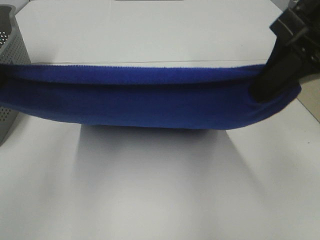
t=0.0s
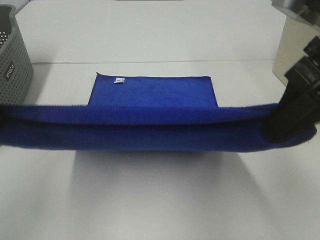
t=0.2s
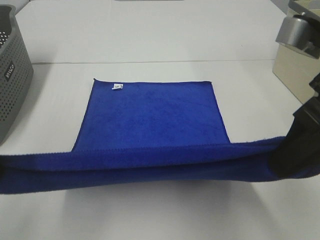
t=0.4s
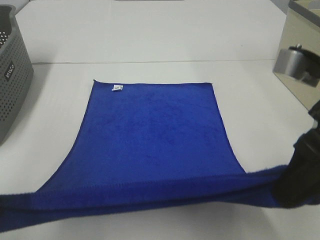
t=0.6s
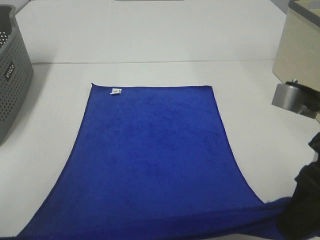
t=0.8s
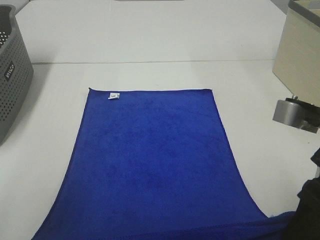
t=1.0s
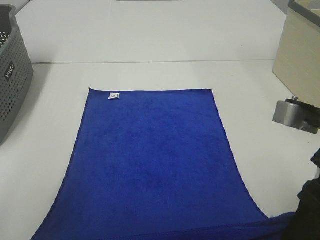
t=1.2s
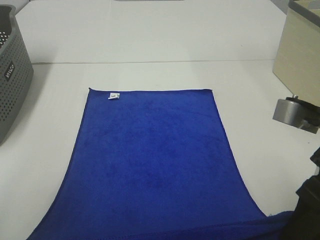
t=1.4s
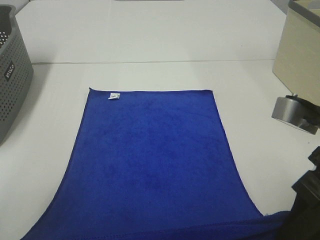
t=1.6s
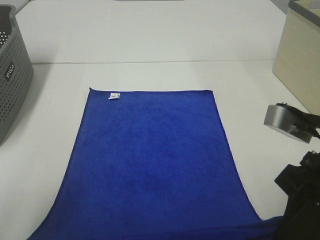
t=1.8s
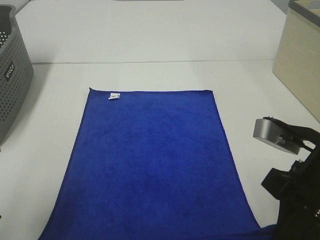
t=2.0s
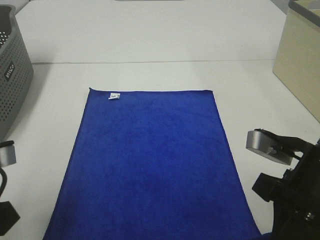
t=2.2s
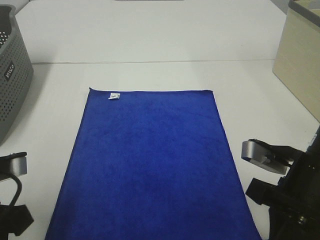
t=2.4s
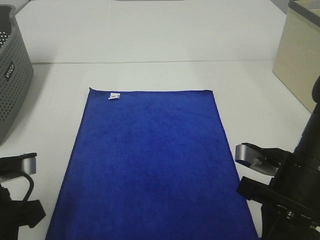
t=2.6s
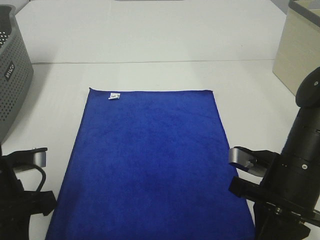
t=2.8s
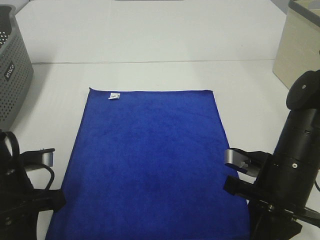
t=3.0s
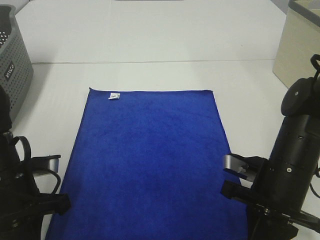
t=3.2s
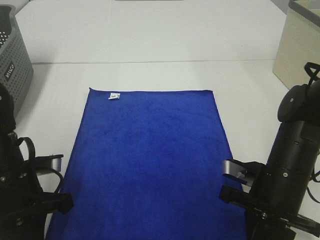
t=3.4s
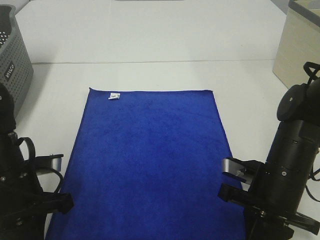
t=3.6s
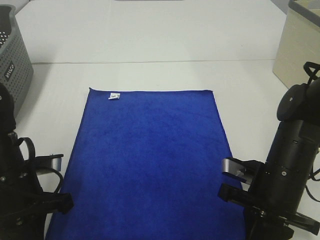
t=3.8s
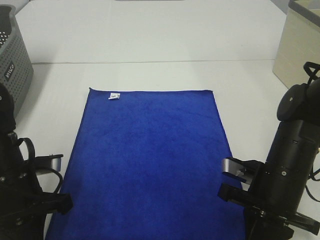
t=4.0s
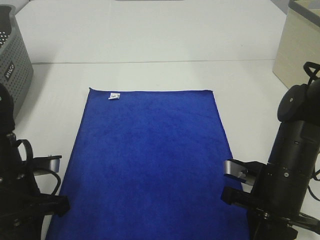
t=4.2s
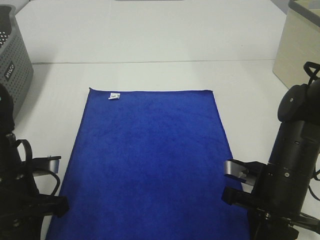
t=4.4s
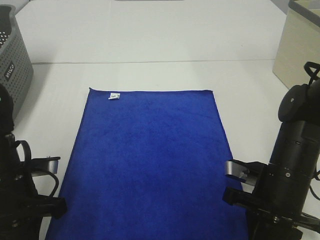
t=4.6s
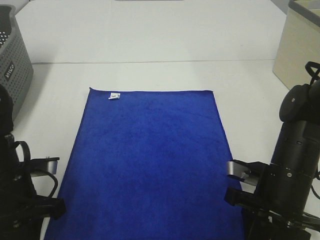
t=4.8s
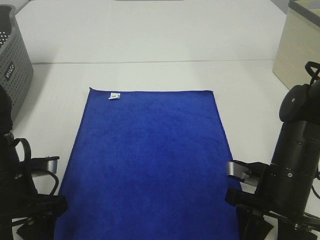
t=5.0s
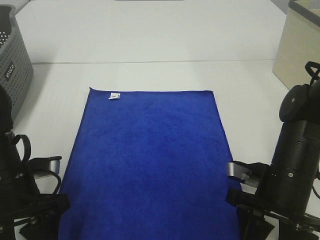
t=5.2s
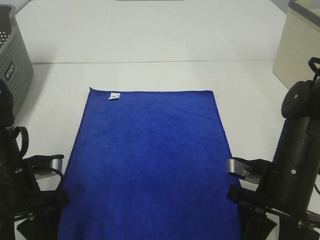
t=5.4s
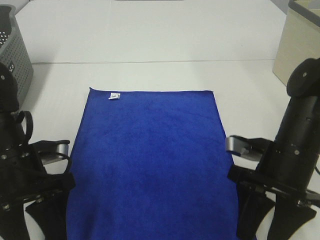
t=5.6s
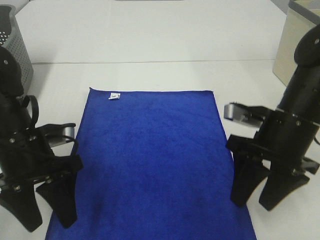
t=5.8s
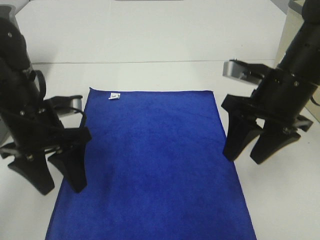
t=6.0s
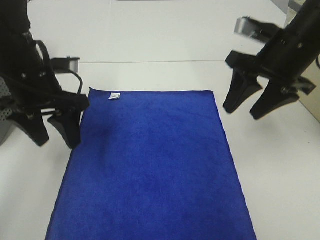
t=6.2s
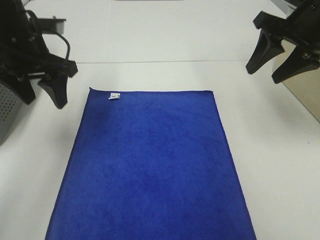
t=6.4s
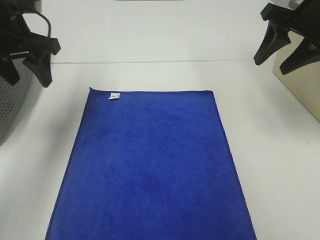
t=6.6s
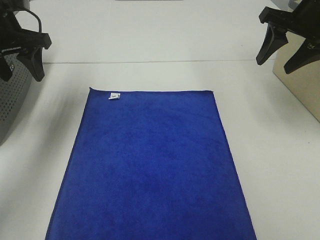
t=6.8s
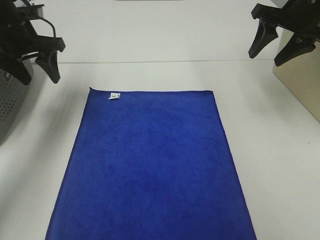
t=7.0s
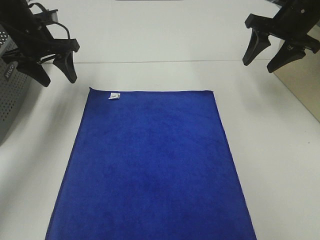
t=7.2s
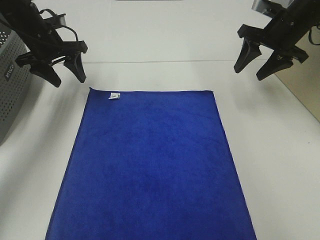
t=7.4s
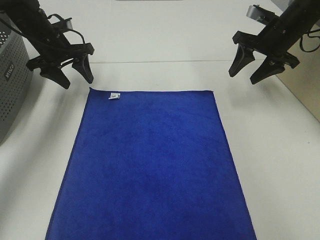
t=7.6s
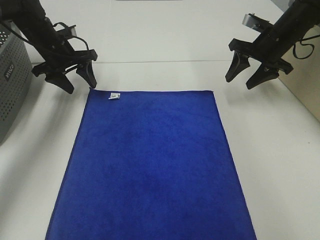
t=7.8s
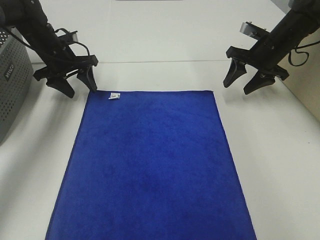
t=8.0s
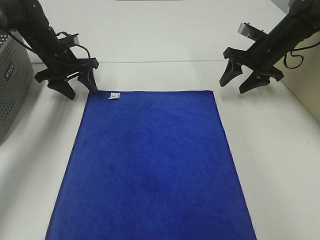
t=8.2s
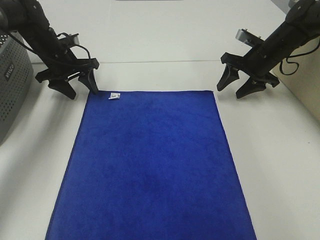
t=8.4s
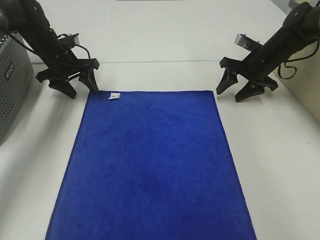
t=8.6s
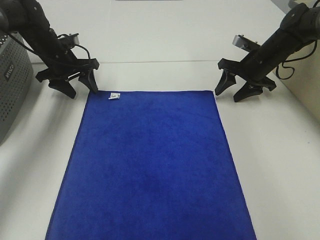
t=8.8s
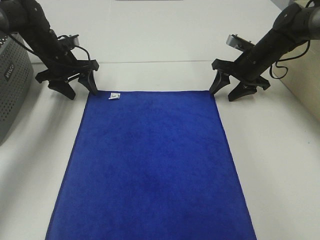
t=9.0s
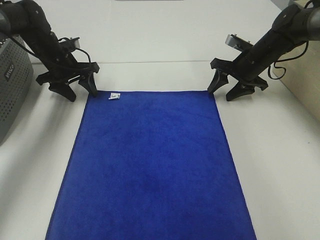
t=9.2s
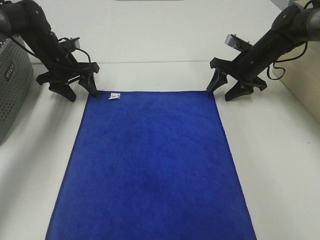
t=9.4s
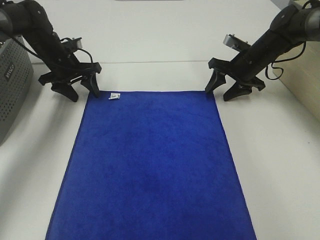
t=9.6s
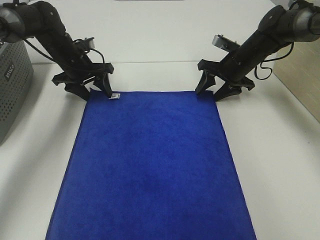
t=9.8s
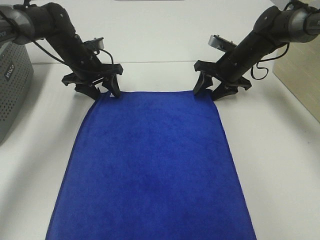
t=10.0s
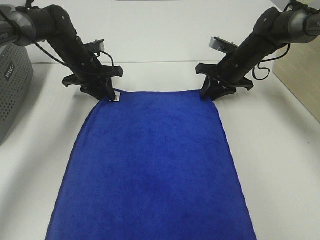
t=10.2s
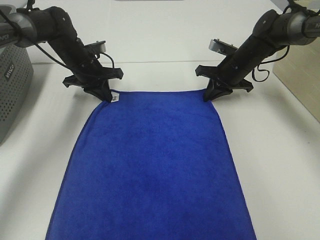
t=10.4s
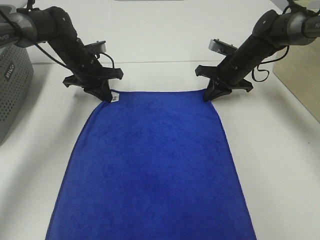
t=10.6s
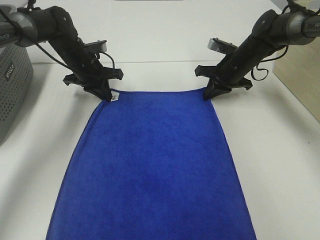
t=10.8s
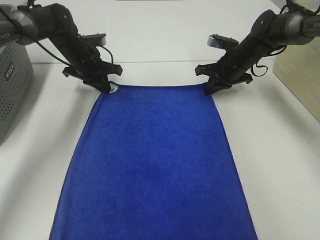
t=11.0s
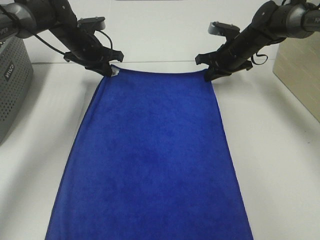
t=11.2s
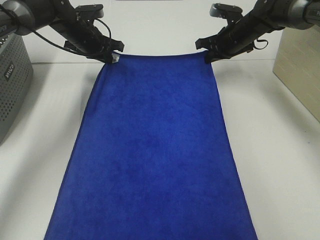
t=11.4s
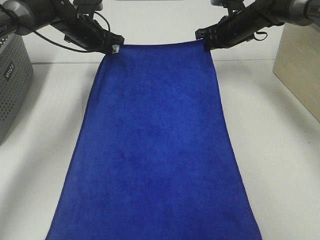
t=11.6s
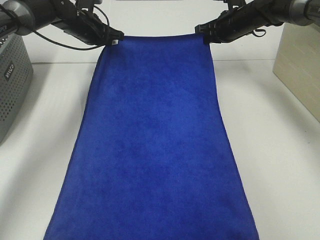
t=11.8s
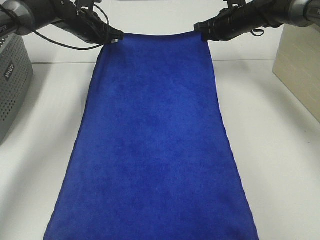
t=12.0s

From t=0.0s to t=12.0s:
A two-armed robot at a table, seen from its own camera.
Task of the whole recording: Remove the towel and place it.
Step, from t=0.0s to t=6.0s: Left hand:adjust the blue towel.
Step, from t=0.0s to t=6.0s: Right hand:adjust the blue towel.
From t=0.0s to t=1.6s: Both grippers move downward and backward, roughly 15 cm.
From t=1.6s to t=3.0s: Both grippers travel together downward and forward, roughly 15 cm.
From t=3.0s to t=4.4s: The grippers stay close to where they were, moving slightly.
From t=4.4s to t=6.0s: The right gripper shifts some 15 cm upward and forward, and opens. The left gripper heads forward and upward, covering approximately 10 cm, and opens up.
From t=6.0s to t=7.6s: The left gripper heads forward, covering some 25 cm, while the right gripper moves forward and to the right, approximately 20 cm.
From t=7.6s to t=9.0s: The right gripper goes roughly 10 cm downward.
From t=9.0s to t=10.4s: The right gripper closes, while the left gripper goes roughly 5 cm to the right, and closes up.
From t=10.4s to t=12.0s: Both grippers travel together upward and forward, about 10 cm.

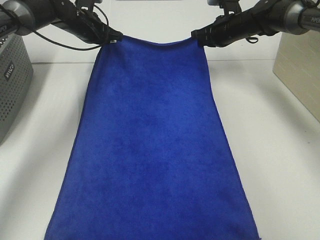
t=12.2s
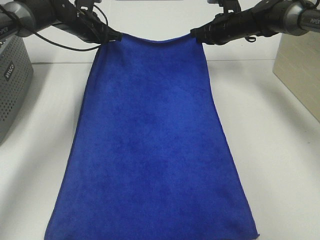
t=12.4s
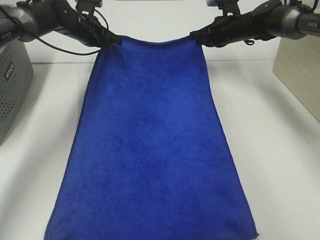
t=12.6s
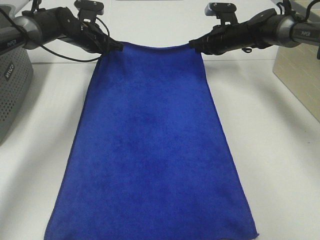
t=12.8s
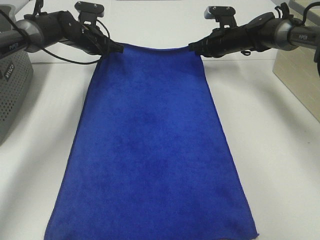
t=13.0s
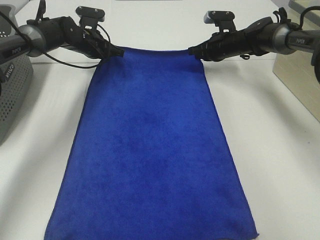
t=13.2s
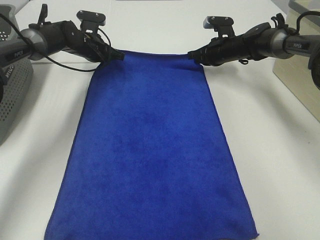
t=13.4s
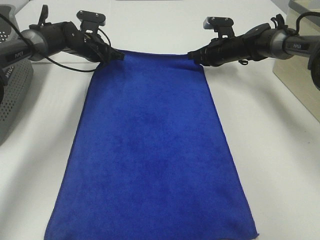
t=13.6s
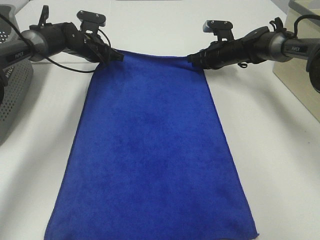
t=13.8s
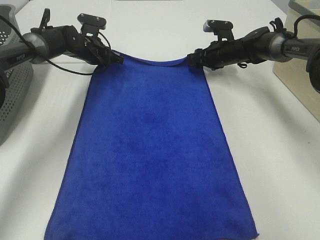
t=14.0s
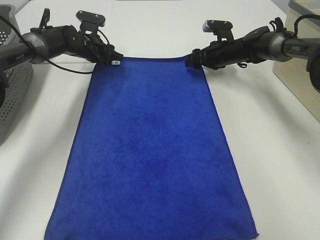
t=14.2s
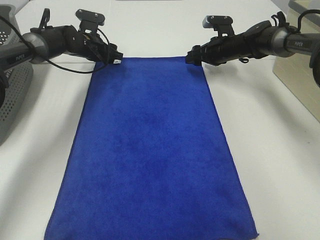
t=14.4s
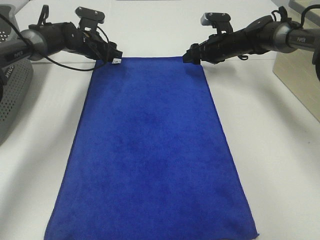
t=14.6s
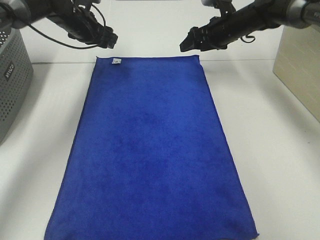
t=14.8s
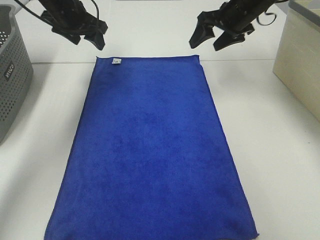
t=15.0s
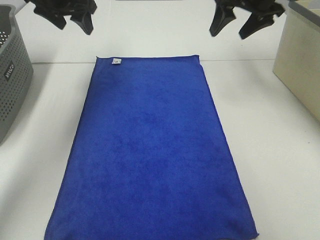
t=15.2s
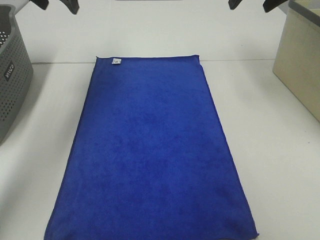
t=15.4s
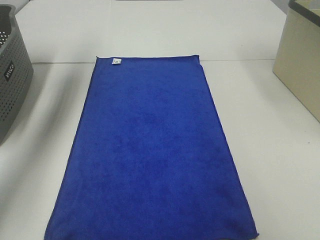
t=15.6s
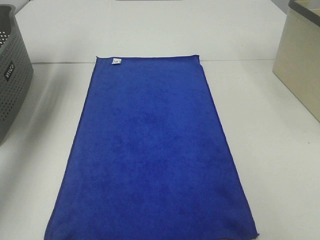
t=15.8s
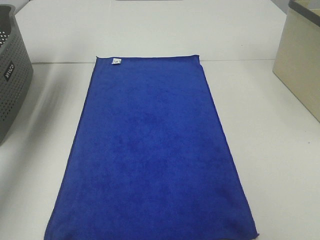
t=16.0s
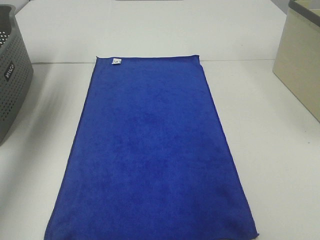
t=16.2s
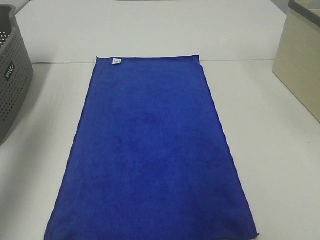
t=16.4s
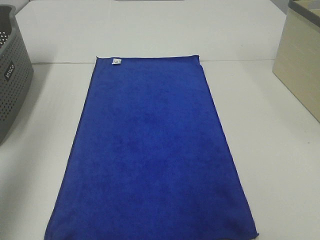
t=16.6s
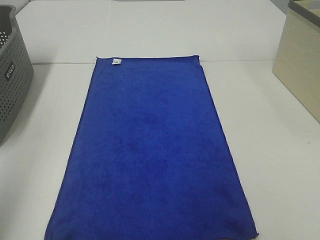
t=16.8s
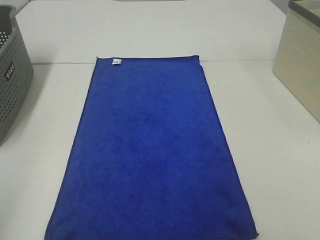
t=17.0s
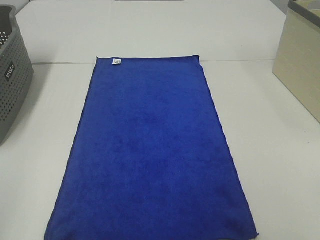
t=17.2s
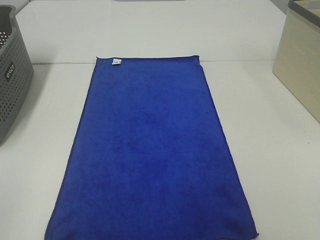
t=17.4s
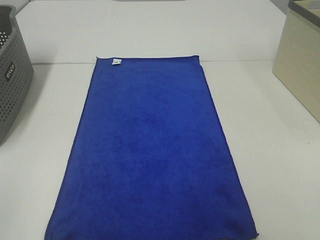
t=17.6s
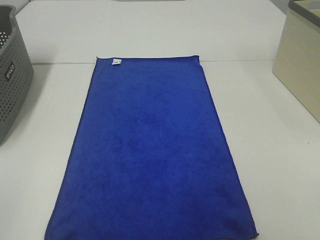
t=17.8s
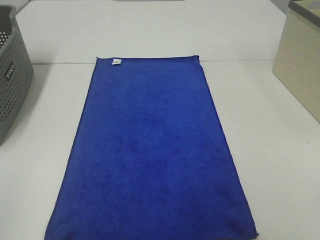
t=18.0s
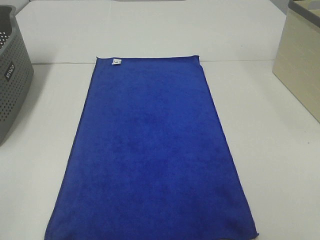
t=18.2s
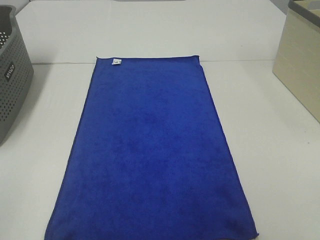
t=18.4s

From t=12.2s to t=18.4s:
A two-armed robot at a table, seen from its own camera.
Task of the whole recording: Remove the towel and place it.
From t=12.2s to t=13.8s: The grippers both shift downward by roughly 5 cm.
From t=13.8s to t=15.4s: Both grippers move upward and backward, roughly 25 cm. The right gripper opens its fingers. Meanwhile the left gripper opens.
From t=15.4s to t=16.8s: The grippers both shift backward by approximately 40 cm.
From t=16.8s to t=18.4s: The left gripper is displaced backward and downward by approximately 15 cm.

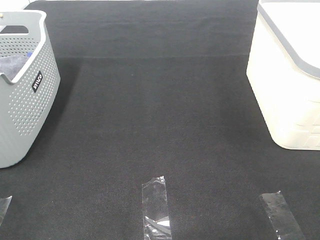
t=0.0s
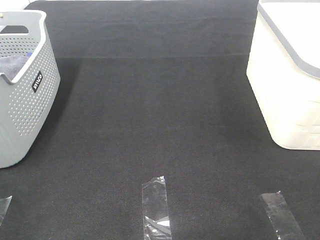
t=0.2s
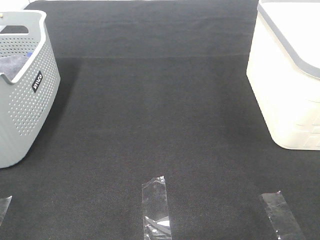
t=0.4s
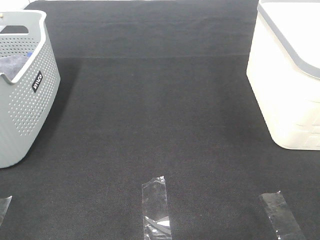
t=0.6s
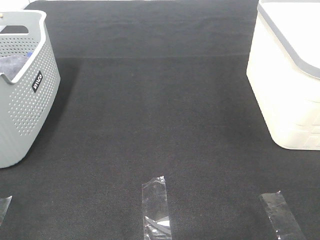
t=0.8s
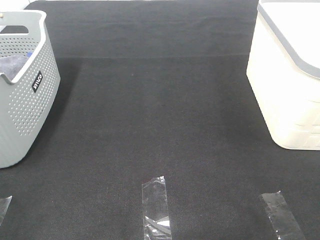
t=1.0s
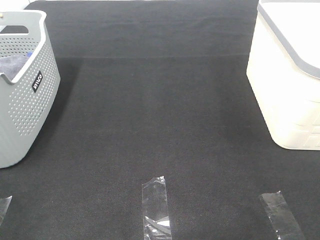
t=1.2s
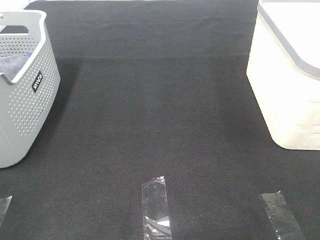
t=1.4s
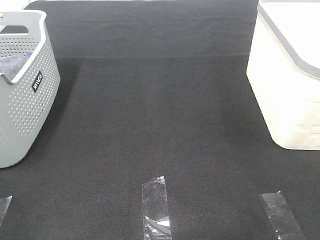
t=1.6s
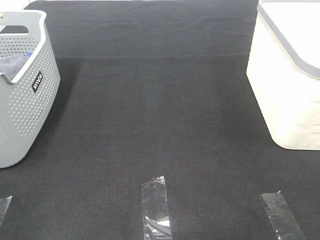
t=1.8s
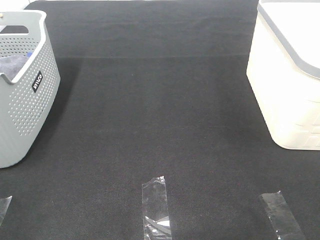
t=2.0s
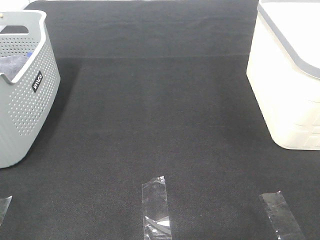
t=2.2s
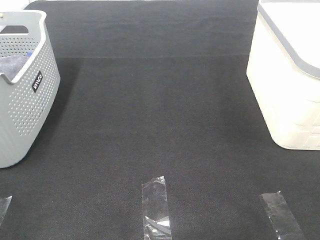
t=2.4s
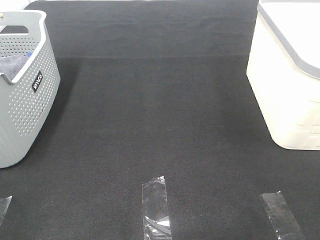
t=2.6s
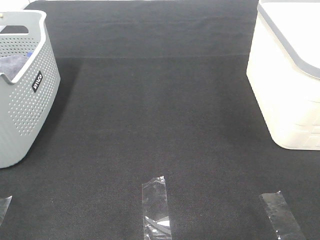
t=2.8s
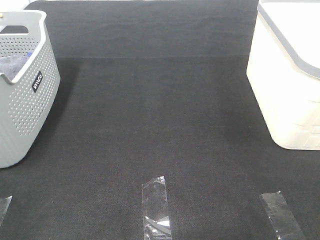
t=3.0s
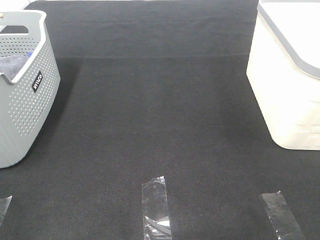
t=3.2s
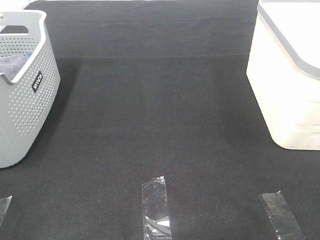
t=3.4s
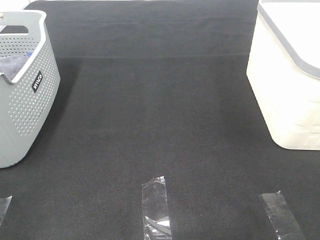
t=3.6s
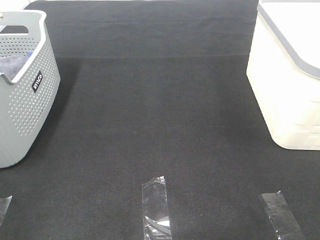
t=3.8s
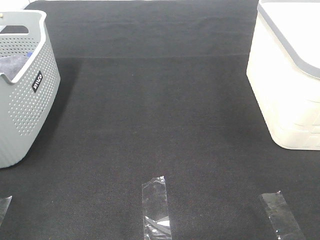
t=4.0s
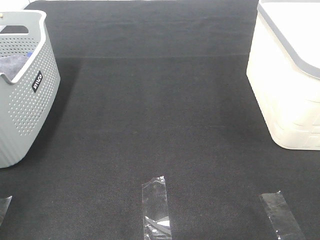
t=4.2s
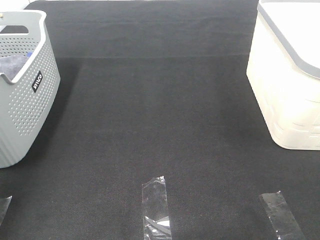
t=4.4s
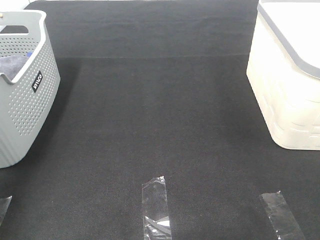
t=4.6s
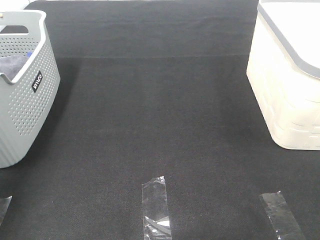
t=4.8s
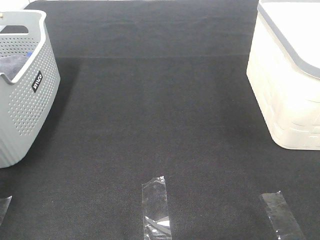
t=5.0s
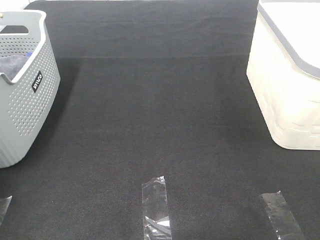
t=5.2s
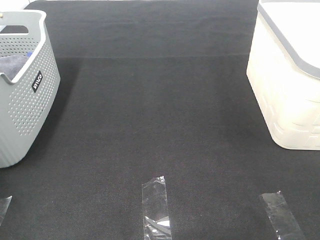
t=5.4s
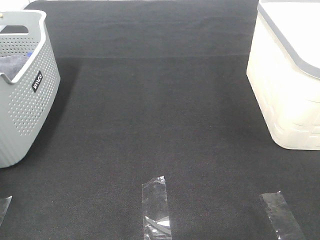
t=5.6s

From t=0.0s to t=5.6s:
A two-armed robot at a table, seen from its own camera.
Task of the whole recording: Remove the towel and place it.
From t=0.0s to t=2.8s: The two grippers keep their place.
